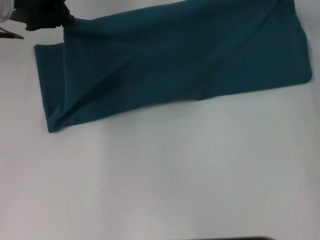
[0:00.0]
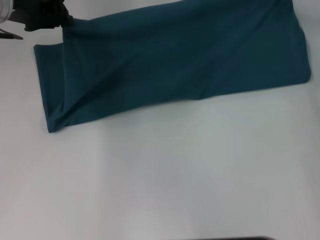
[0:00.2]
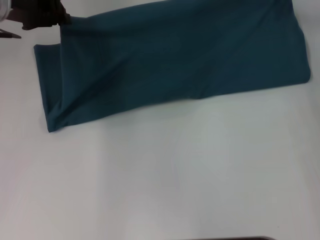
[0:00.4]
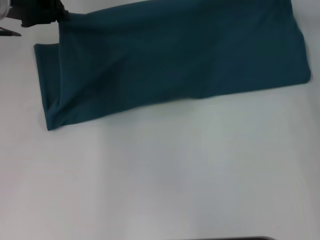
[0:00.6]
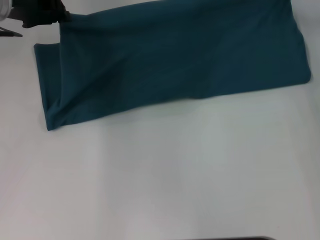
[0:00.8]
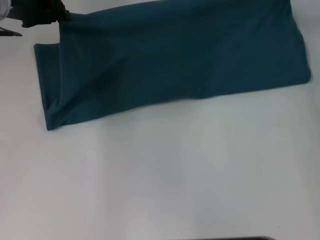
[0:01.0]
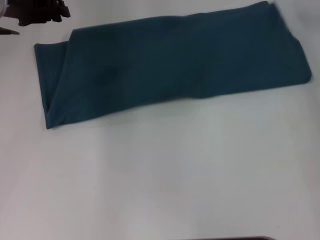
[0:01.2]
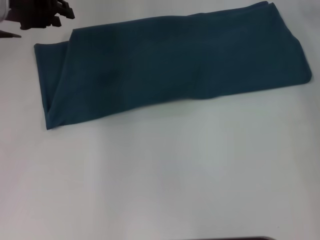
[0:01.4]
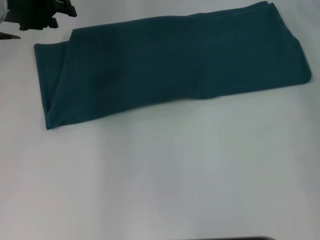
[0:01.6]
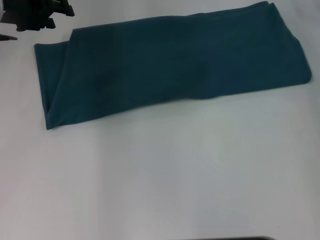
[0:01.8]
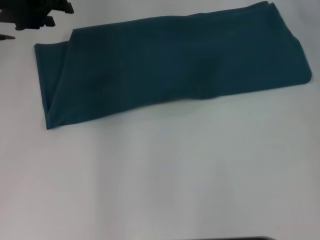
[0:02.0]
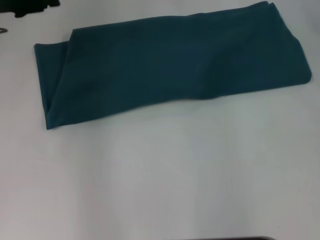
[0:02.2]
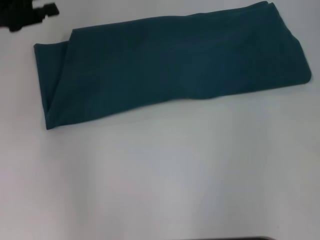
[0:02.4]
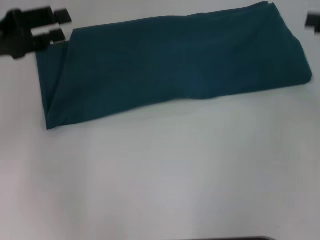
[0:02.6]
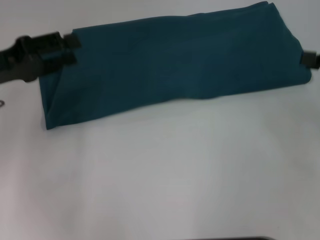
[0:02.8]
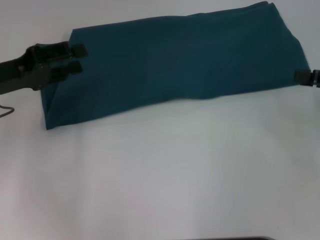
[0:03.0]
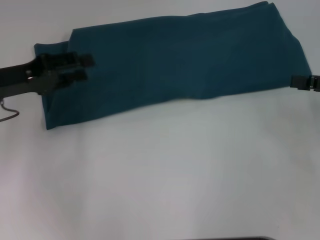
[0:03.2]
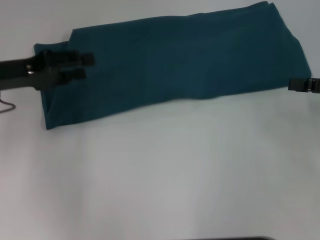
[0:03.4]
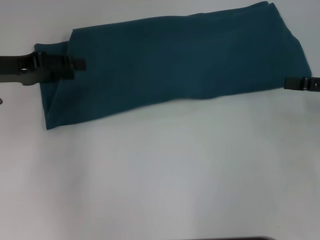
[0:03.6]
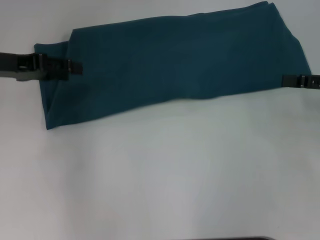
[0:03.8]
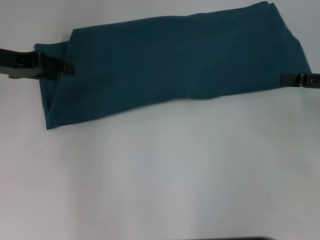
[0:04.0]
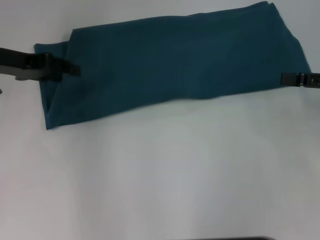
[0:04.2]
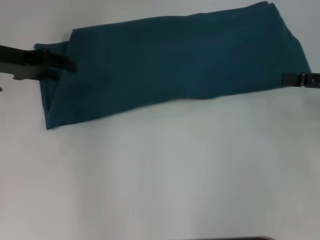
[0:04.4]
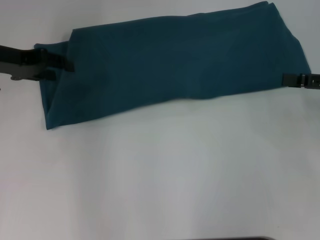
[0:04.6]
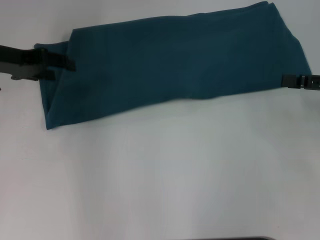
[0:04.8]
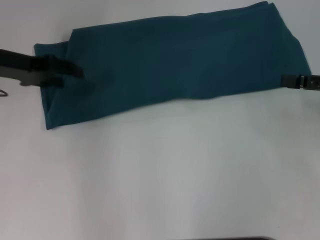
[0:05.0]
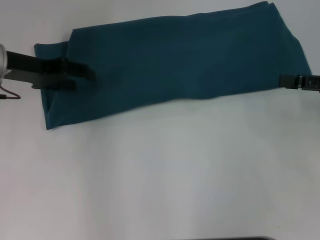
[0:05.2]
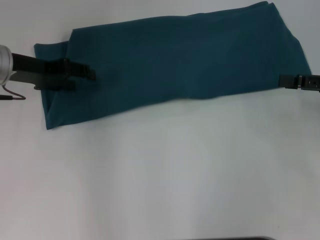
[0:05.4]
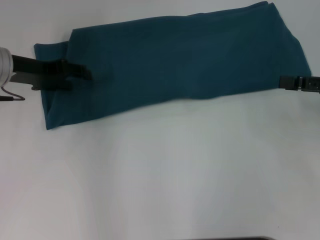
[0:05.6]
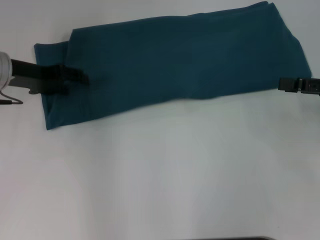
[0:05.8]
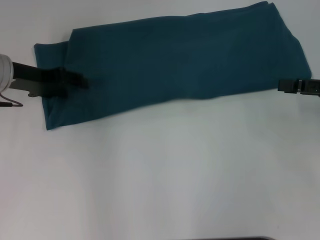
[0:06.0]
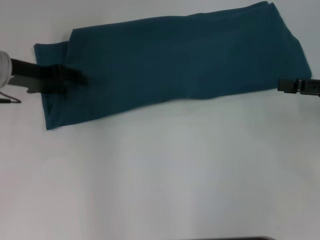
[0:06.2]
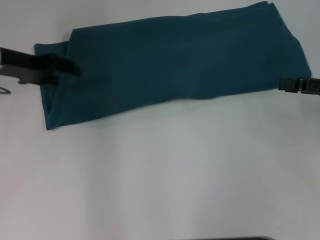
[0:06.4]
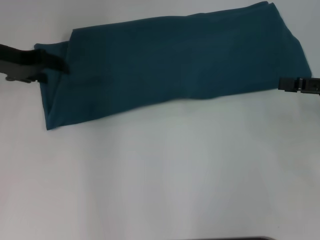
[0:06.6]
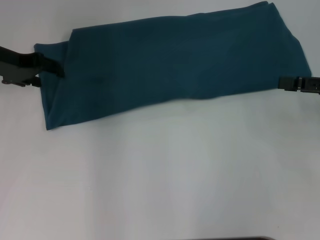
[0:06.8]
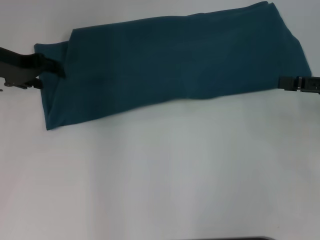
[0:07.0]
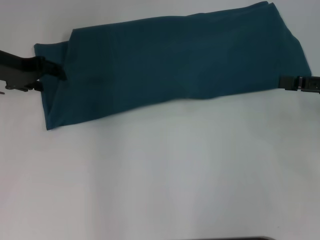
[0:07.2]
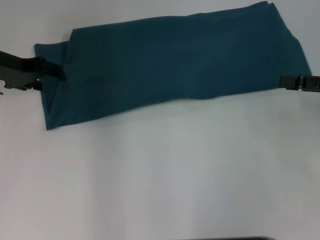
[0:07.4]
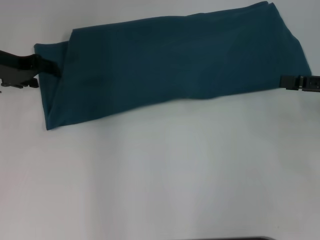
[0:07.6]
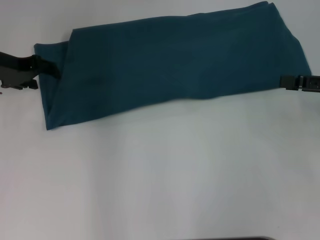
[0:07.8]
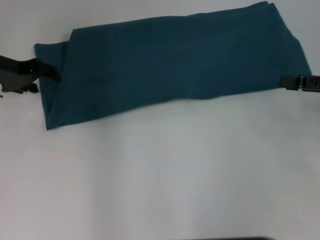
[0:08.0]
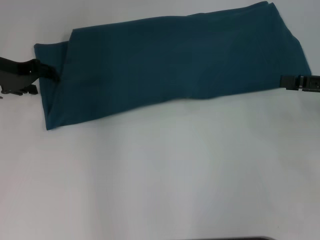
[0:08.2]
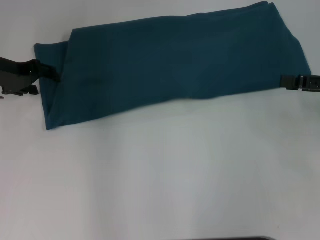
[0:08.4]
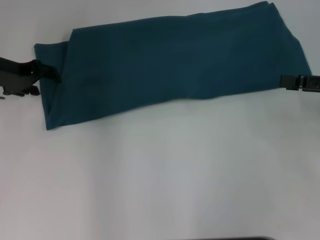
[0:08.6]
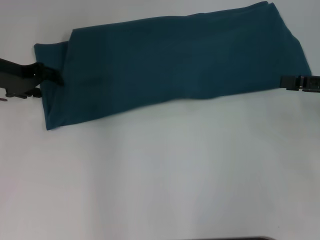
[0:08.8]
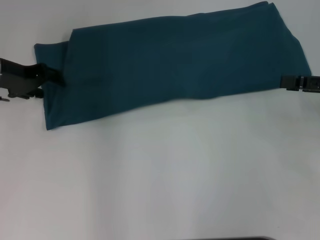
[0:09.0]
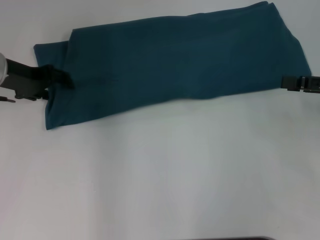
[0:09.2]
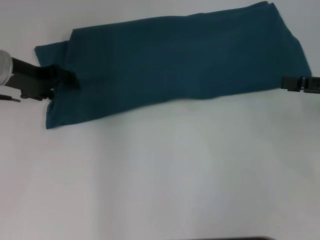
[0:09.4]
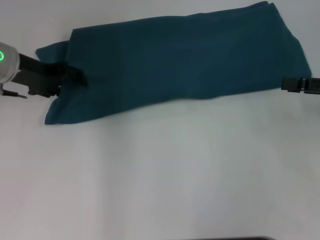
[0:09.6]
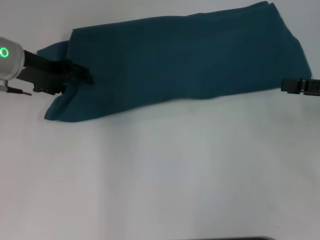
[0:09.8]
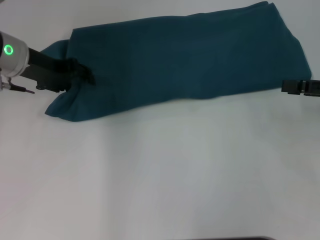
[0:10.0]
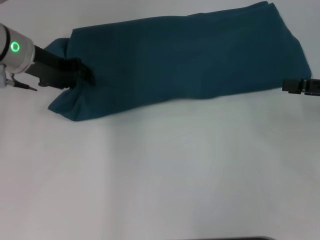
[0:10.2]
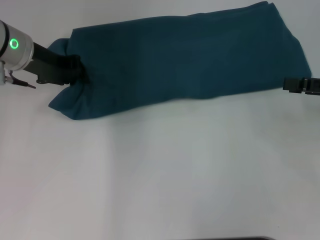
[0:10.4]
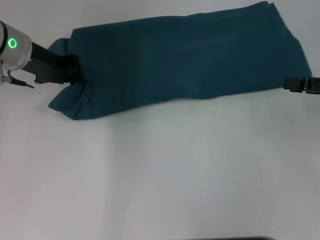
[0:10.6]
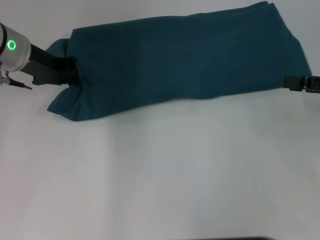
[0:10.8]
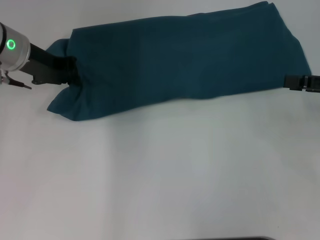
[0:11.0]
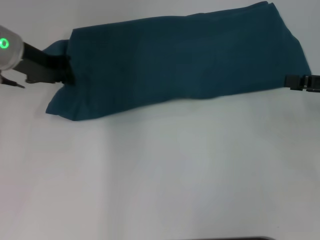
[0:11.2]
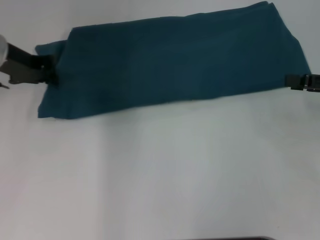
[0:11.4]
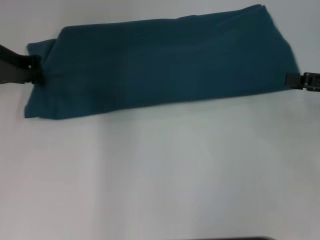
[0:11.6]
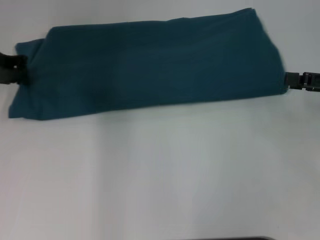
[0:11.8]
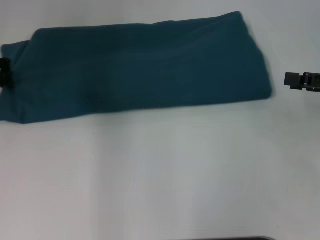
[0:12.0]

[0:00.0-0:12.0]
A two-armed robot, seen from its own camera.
0:00.0 to 0:01.6: The left gripper opens; the right gripper opens its fingers.
0:01.6 to 0:03.0: The left gripper moves backward and downward, about 15 cm.
0:03.0 to 0:04.4: The left gripper shifts roughly 5 cm forward.
0:04.4 to 0:07.6: The grippers make only small movements.
0:07.6 to 0:09.0: The grippers stay close to where they were, moving slightly.
0:09.0 to 0:10.4: The left gripper goes approximately 5 cm to the right.
0:10.4 to 0:12.0: The left gripper is displaced to the left by roughly 10 cm, and closes up.

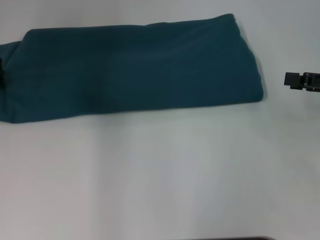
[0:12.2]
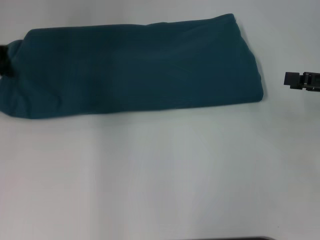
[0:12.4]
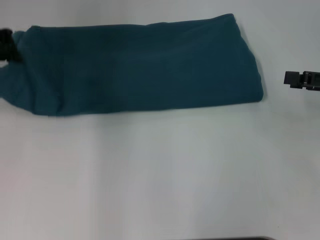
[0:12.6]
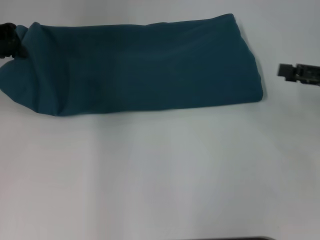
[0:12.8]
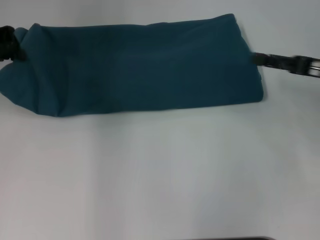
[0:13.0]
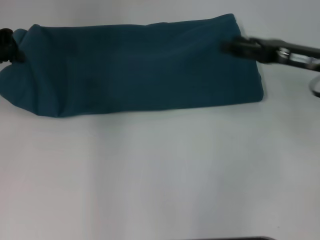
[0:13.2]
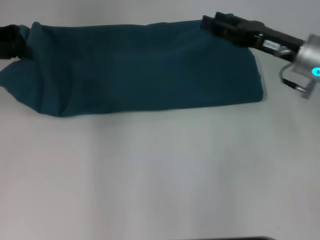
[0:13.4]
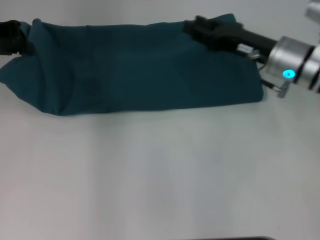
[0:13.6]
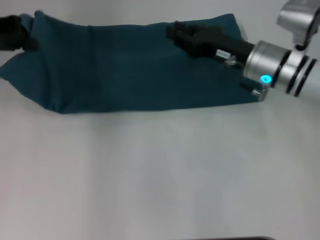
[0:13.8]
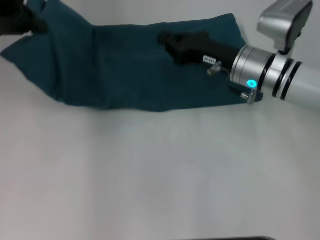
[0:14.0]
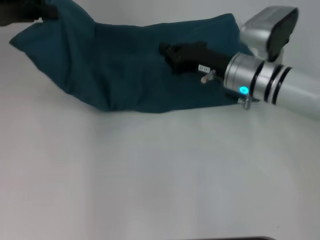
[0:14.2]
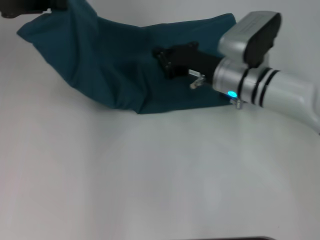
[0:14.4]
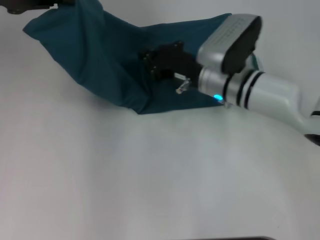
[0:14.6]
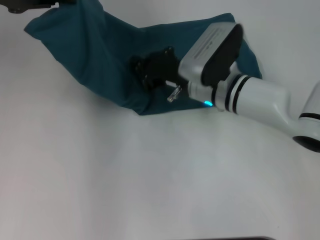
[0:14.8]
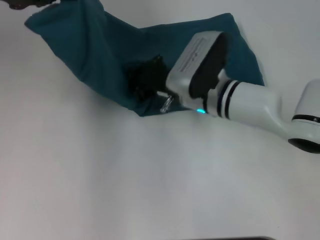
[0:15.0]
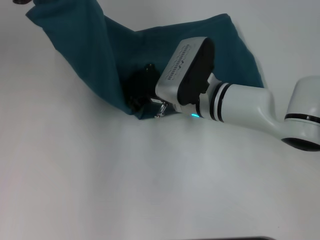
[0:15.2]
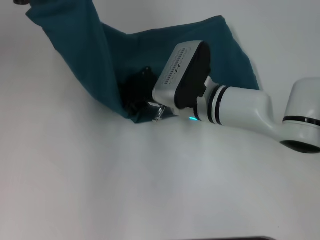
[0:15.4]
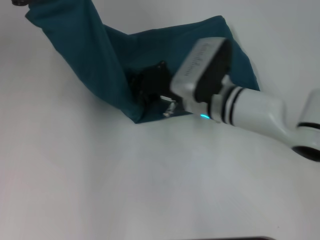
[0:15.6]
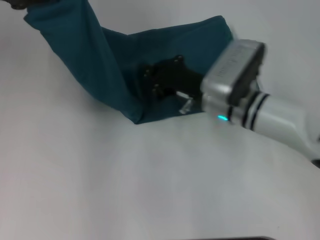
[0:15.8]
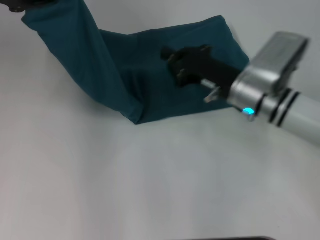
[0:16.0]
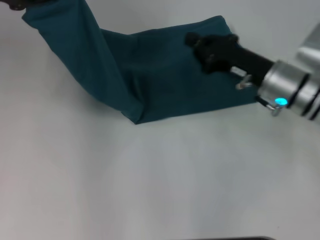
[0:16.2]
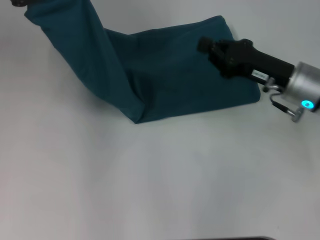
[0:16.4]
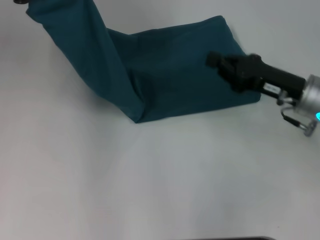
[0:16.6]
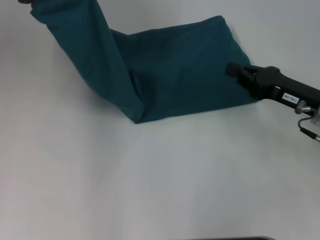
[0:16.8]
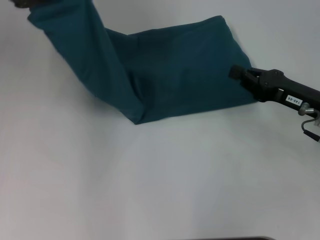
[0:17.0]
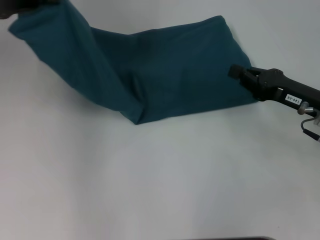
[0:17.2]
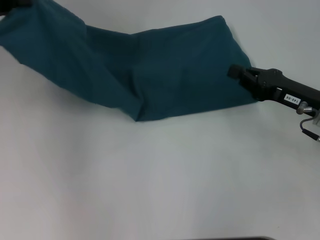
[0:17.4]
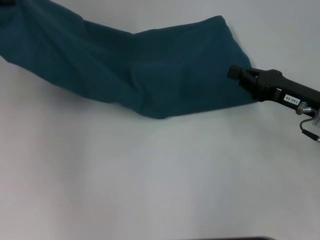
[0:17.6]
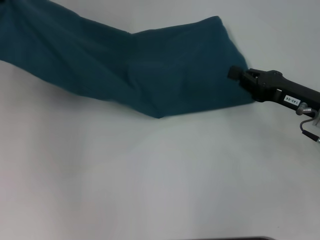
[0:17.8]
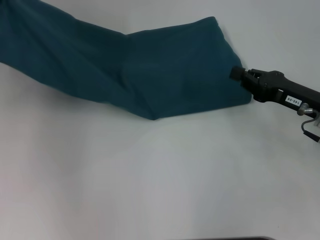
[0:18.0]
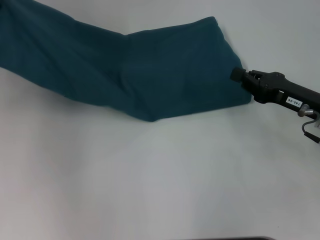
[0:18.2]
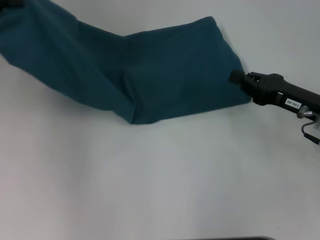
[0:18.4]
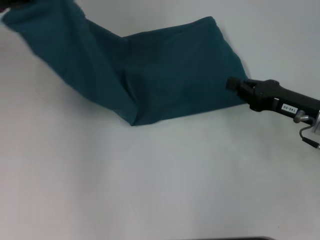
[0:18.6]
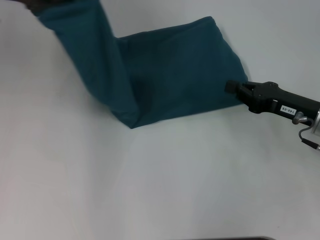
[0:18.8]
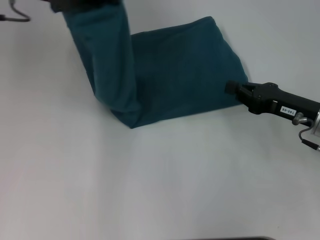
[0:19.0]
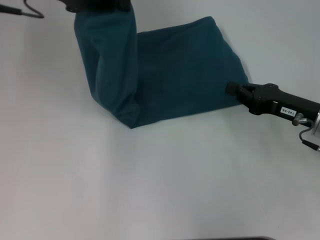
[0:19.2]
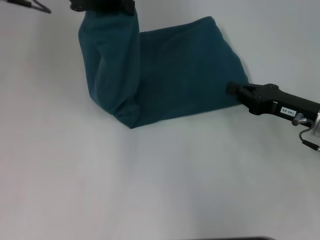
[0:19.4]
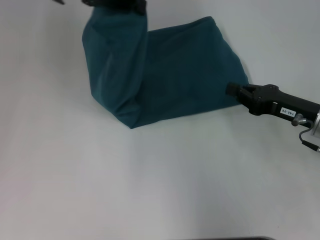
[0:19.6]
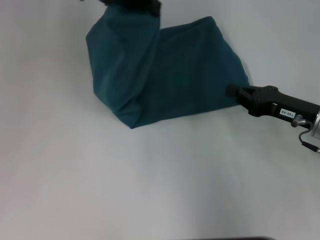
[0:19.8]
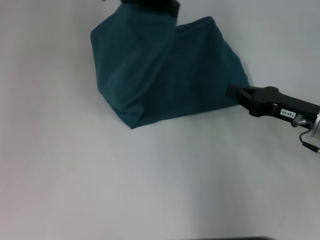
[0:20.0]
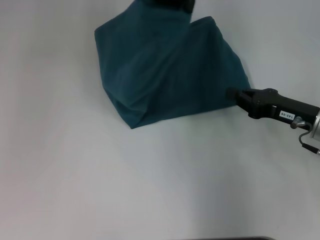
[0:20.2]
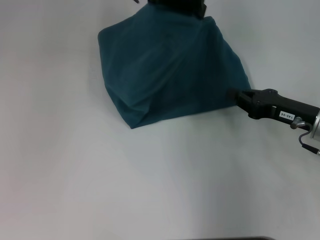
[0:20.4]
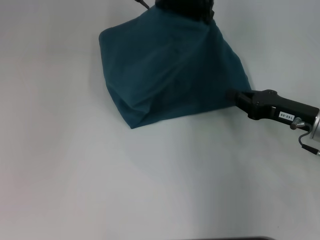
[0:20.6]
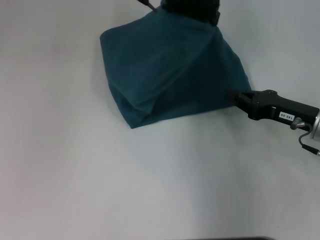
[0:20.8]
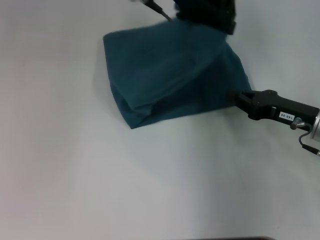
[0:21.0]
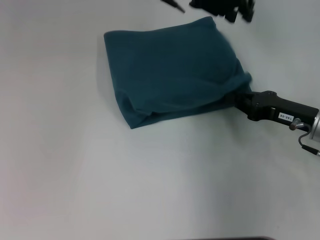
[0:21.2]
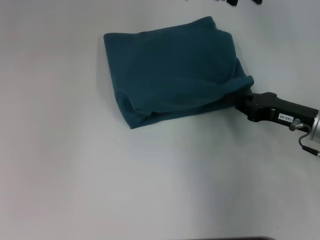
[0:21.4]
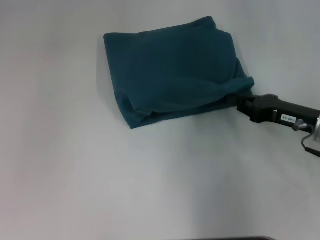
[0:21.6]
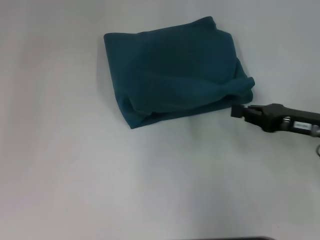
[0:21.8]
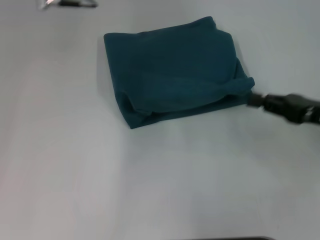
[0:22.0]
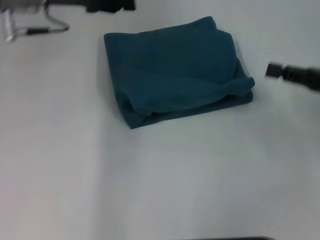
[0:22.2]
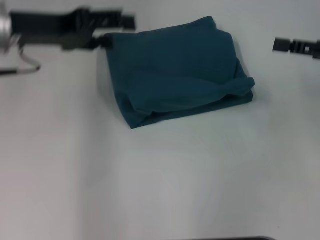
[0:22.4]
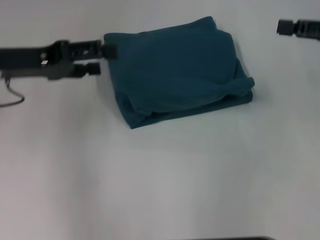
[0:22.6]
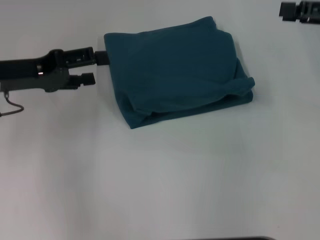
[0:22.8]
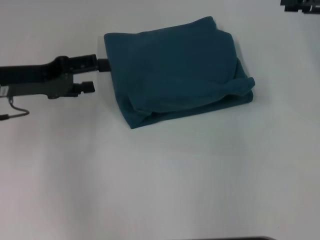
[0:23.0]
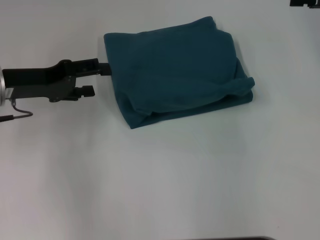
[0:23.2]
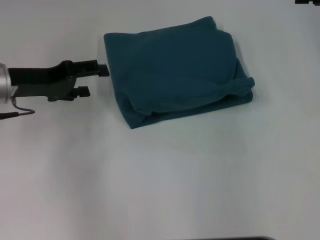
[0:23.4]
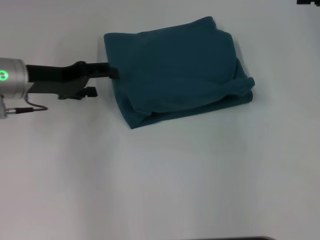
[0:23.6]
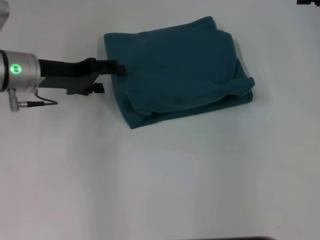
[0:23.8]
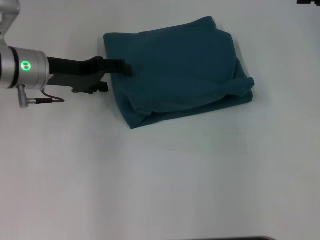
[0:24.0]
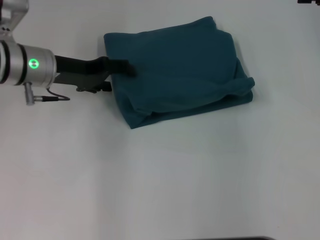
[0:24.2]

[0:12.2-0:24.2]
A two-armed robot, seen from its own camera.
Step, 0:12.2 to 0:15.8: Press the middle of the clothes with your right hand.
Step, 0:16.0 to 0:21.2: Fold the clothes to the left.
0:12.2 to 0:13.8: The left gripper goes approximately 5 cm upward, while the right gripper is displaced to the left and forward by about 20 cm, and closes its fingers.
0:13.8 to 0:15.2: The right gripper goes roughly 10 cm to the left, and closes up, while the left gripper changes place by about 5 cm.
0:15.2 to 0:16.6: The right gripper shifts approximately 15 cm to the right.
0:16.6 to 0:18.2: The left gripper heads to the left, covering roughly 10 cm.
0:18.2 to 0:19.8: The left gripper shifts roughly 25 cm to the right.
0:19.8 to 0:21.2: The left gripper moves to the right, approximately 10 cm.
0:21.2 to 0:22.6: The left gripper shifts some 25 cm to the left, and opens. The right gripper moves upward, to the right and forward, approximately 15 cm, and opens up.
0:22.6 to 0:24.2: The left gripper is displaced to the right, forward and downward by some 10 cm. The right gripper travels upward by approximately 5 cm.
